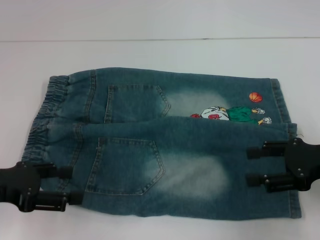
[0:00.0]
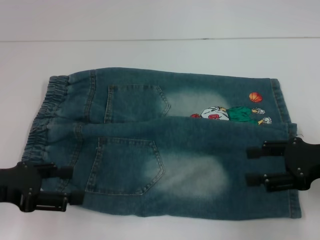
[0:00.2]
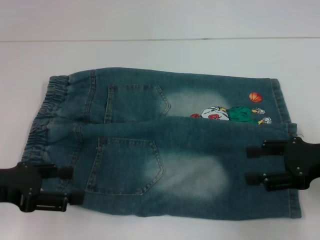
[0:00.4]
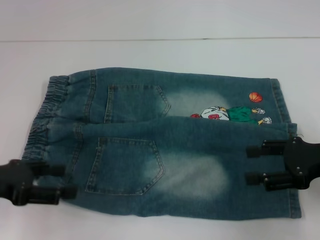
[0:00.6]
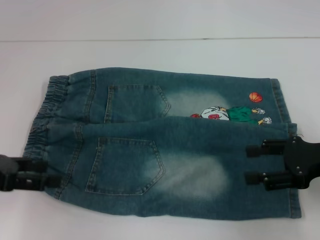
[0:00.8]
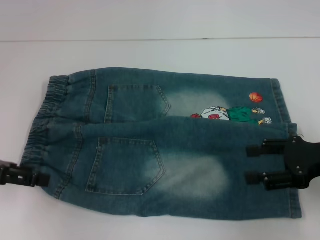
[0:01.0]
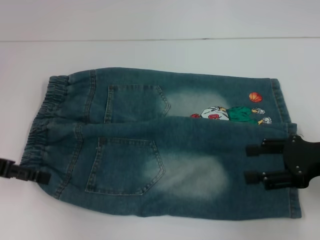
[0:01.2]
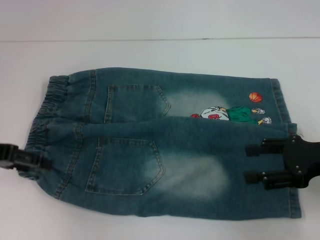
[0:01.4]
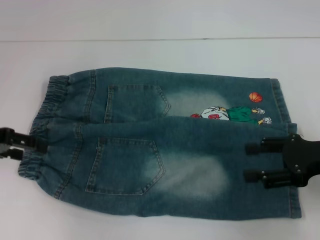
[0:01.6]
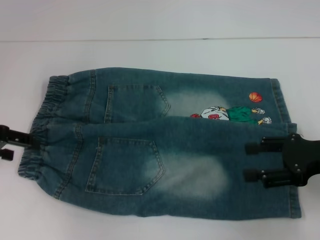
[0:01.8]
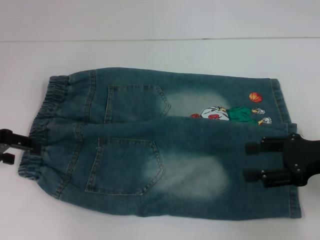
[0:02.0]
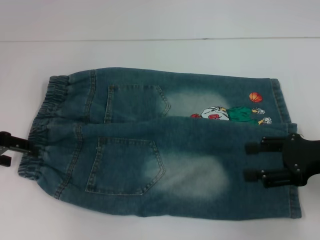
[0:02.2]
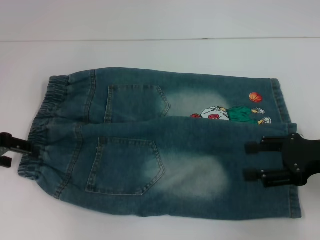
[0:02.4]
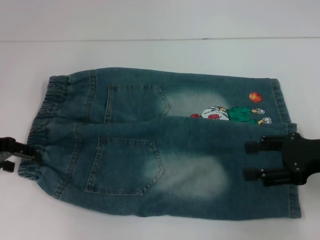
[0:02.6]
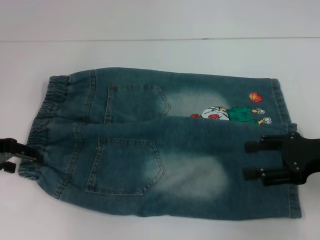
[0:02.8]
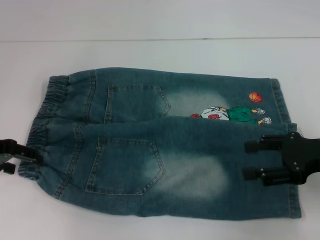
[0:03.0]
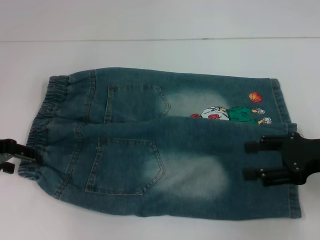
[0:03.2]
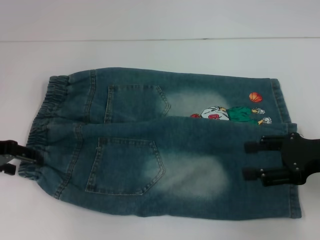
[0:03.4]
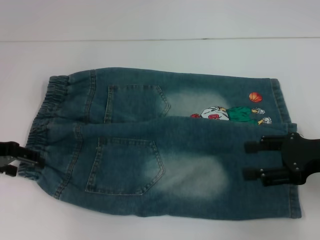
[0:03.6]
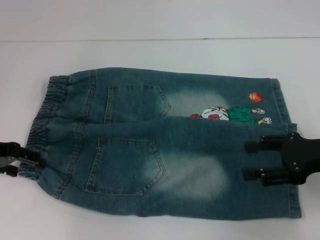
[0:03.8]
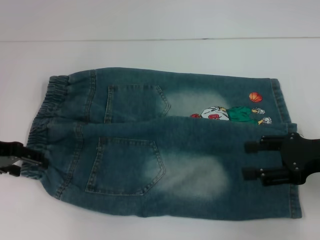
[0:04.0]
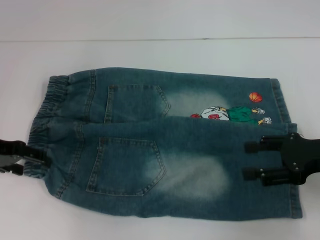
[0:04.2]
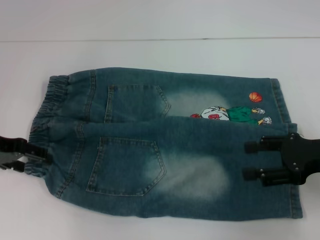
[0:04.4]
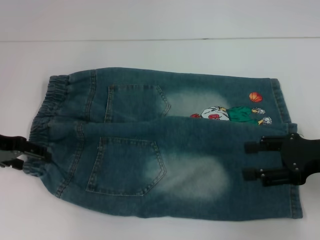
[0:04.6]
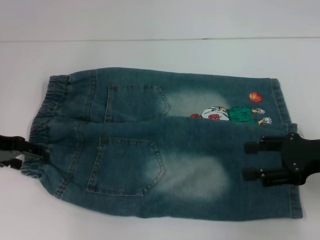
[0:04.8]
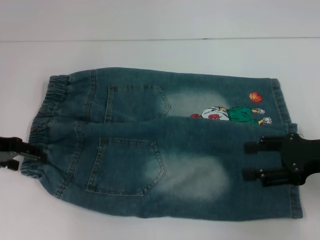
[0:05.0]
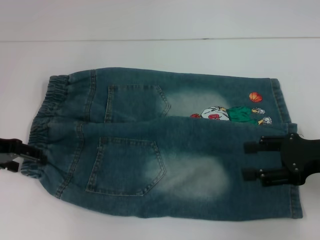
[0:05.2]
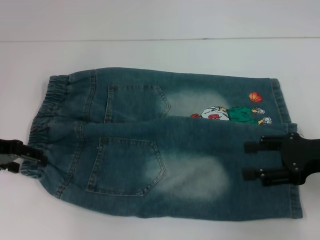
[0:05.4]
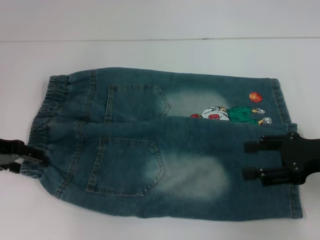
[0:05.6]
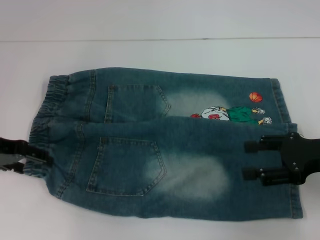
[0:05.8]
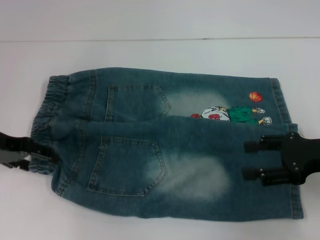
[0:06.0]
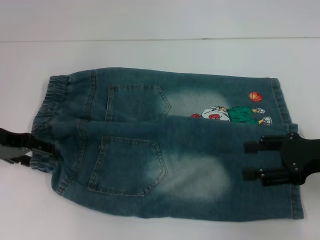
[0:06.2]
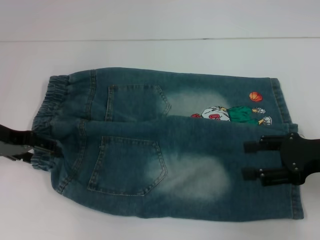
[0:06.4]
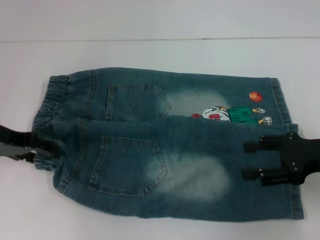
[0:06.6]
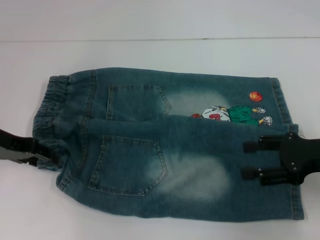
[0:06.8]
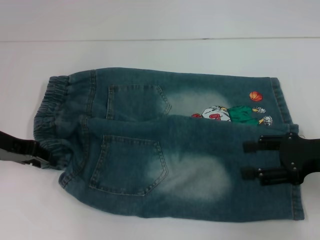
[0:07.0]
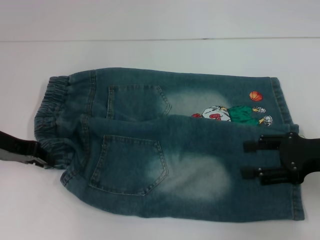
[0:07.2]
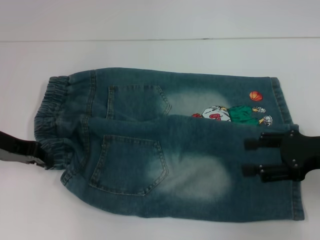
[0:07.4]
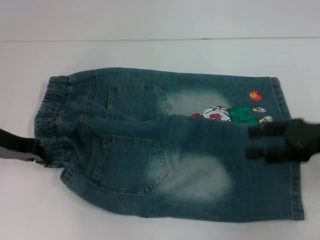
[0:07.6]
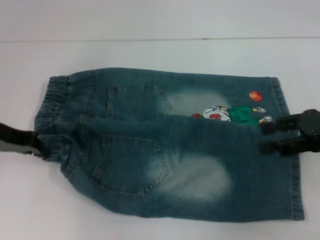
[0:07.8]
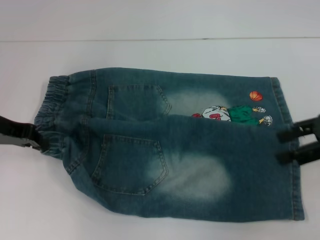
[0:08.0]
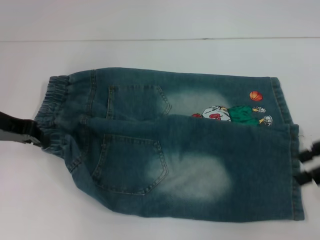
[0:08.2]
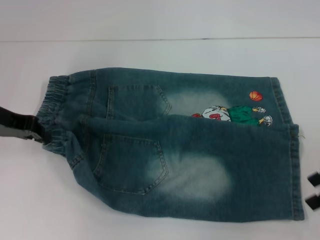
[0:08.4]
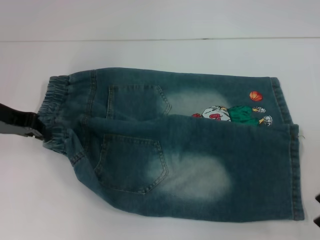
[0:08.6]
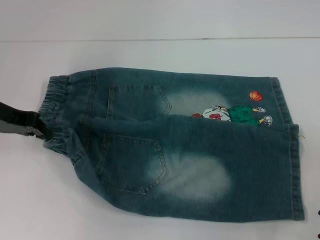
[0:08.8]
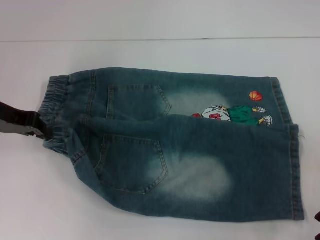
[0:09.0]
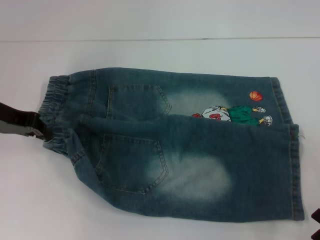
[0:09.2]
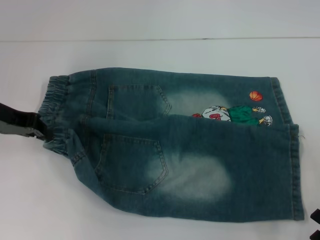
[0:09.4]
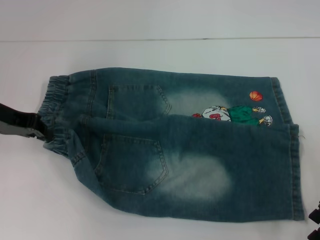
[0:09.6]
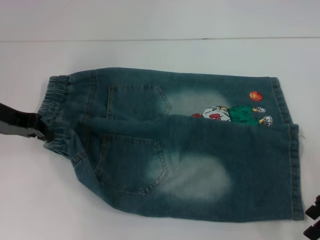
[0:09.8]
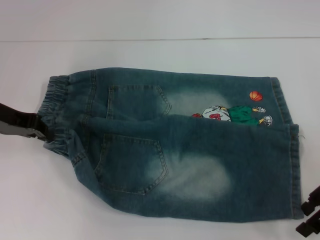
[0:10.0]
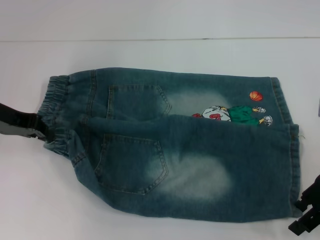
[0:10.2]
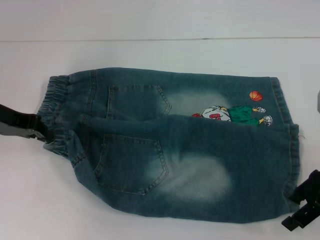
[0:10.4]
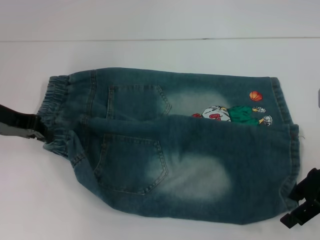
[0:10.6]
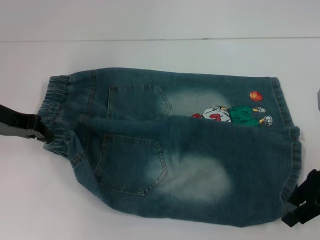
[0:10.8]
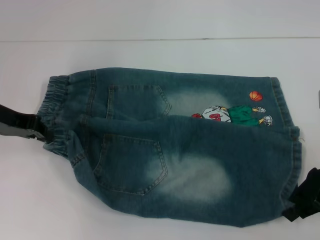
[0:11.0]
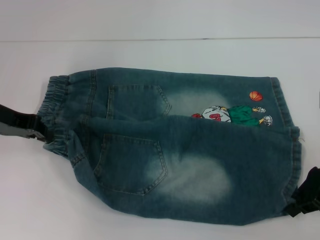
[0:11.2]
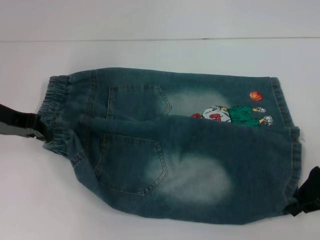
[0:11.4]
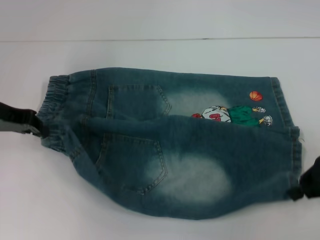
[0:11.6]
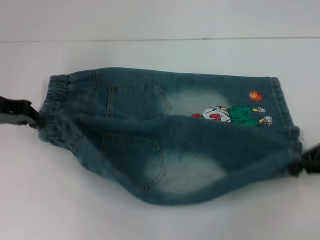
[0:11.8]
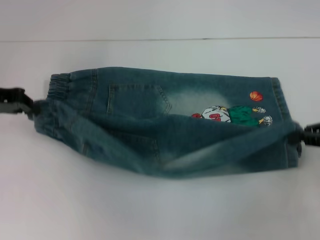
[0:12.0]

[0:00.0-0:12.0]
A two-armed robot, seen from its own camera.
Step, 0:00.0 to 0:07.2: Hold the lower left waistband with your left hand.
Step, 0:07.4 to 0:11.6: Grab the lower right pant leg with your right hand.
0:00.0 to 0:01.6: The left gripper moves forward, approximately 10 cm.
0:01.6 to 0:03.0: The grippers move only a little.
0:03.0 to 0:04.4: Neither gripper changes place.
0:04.4 to 0:06.0: The two grippers keep their place.
0:06.0 to 0:07.6: The left gripper closes up.
0:09.0 to 0:10.4: There are only small adjustments of the grippers.
0:10.4 to 0:12.0: The right gripper heads to the right, covering roughly 10 cm, and closes.

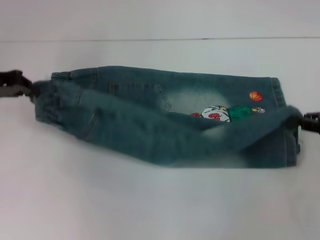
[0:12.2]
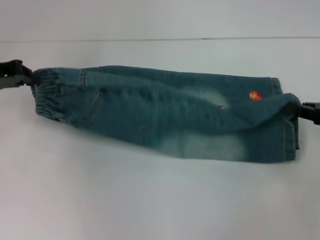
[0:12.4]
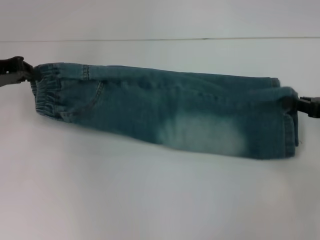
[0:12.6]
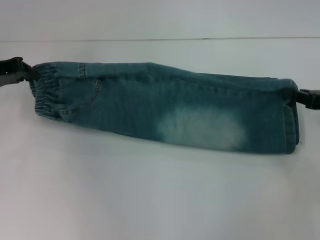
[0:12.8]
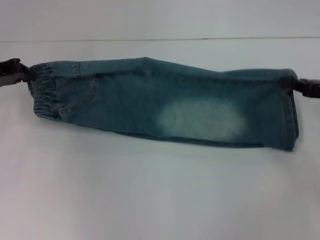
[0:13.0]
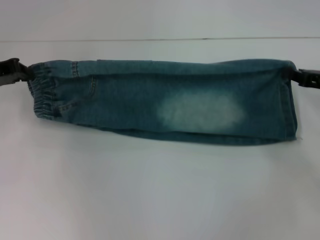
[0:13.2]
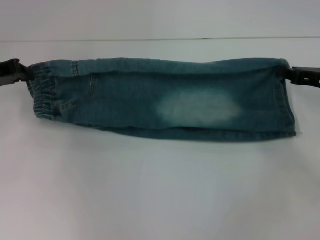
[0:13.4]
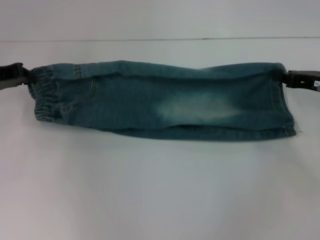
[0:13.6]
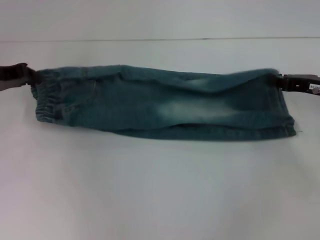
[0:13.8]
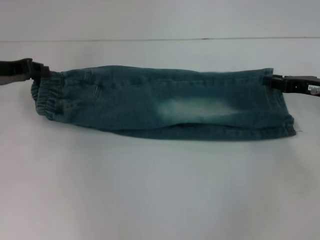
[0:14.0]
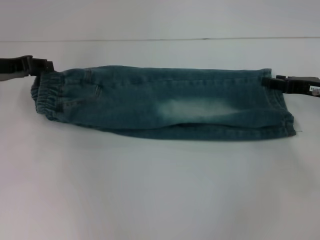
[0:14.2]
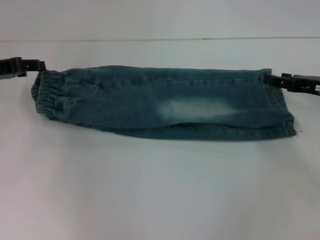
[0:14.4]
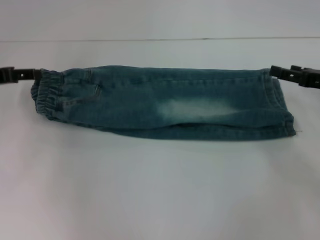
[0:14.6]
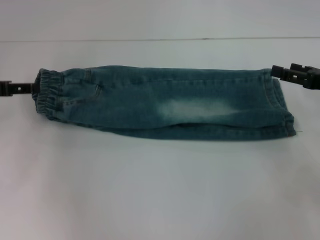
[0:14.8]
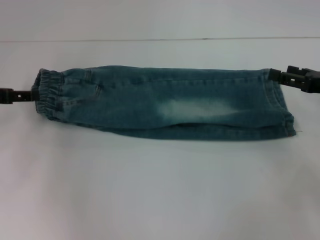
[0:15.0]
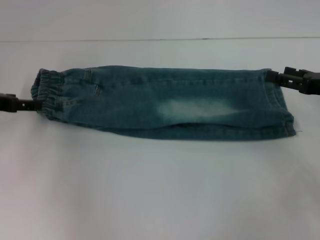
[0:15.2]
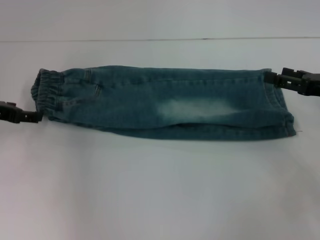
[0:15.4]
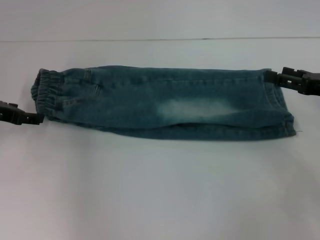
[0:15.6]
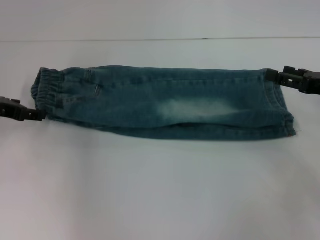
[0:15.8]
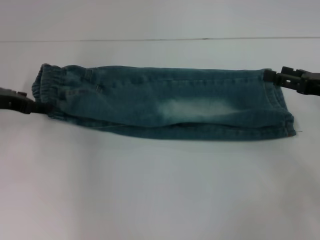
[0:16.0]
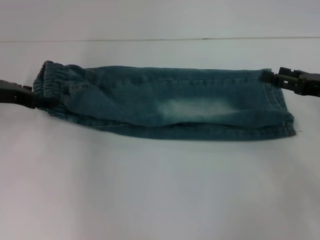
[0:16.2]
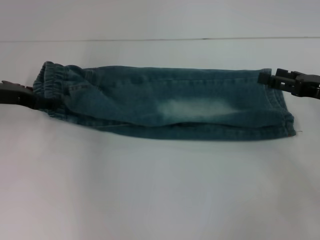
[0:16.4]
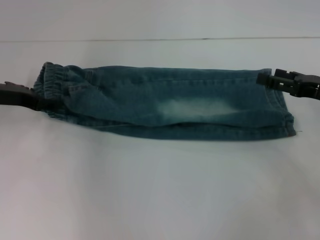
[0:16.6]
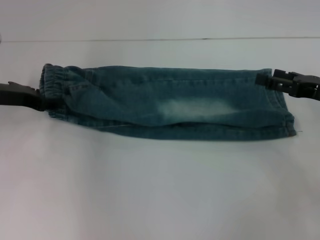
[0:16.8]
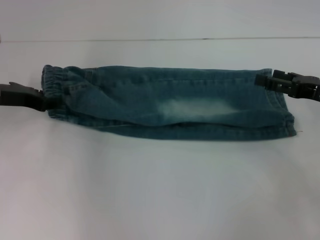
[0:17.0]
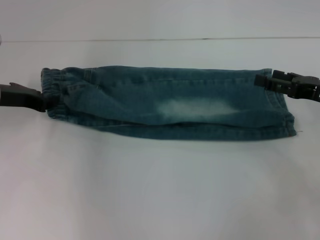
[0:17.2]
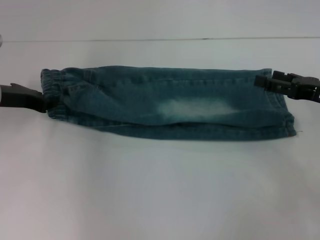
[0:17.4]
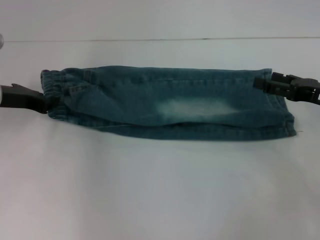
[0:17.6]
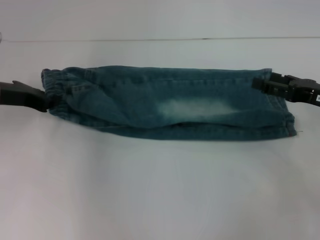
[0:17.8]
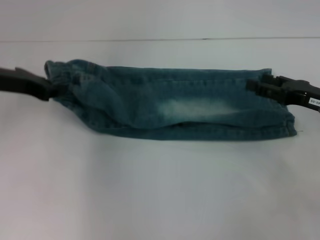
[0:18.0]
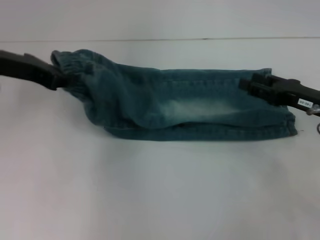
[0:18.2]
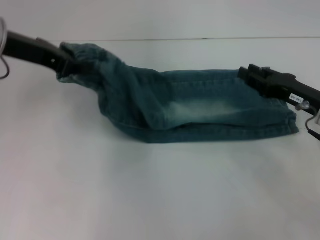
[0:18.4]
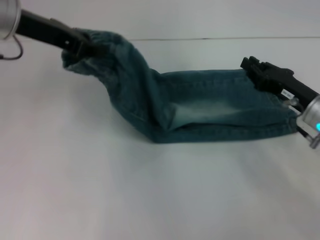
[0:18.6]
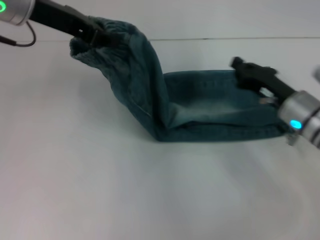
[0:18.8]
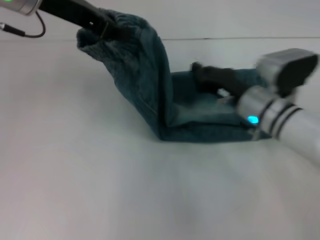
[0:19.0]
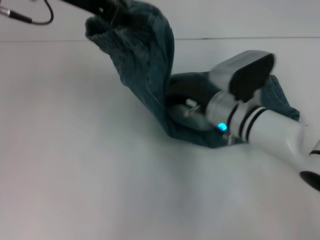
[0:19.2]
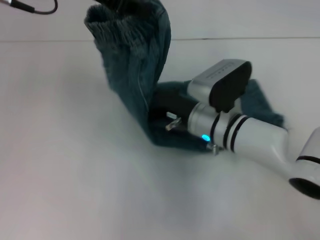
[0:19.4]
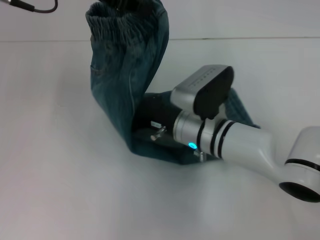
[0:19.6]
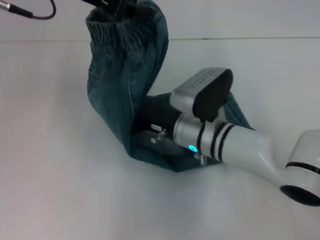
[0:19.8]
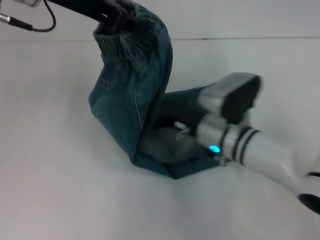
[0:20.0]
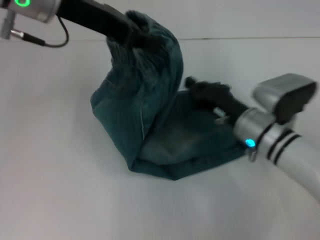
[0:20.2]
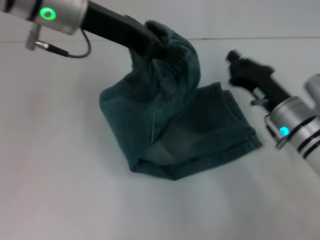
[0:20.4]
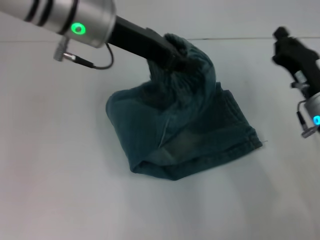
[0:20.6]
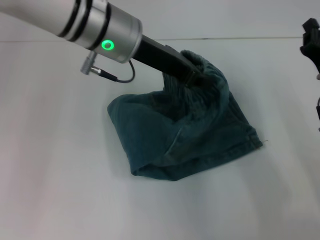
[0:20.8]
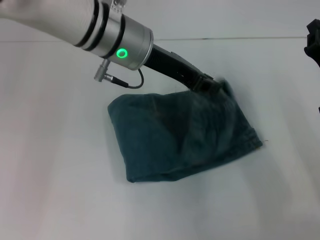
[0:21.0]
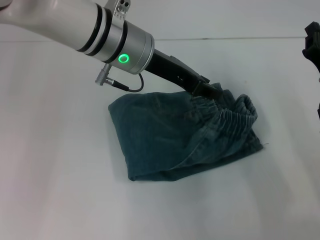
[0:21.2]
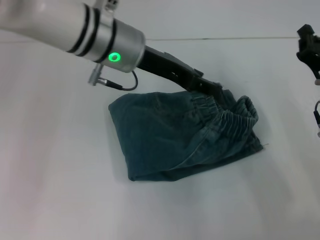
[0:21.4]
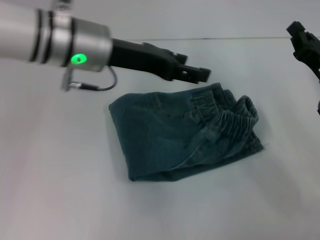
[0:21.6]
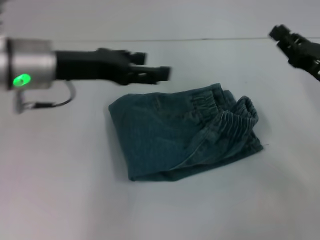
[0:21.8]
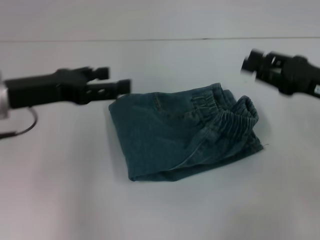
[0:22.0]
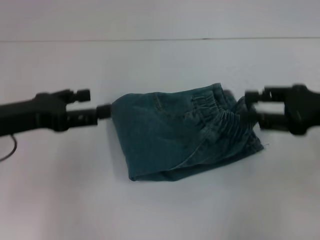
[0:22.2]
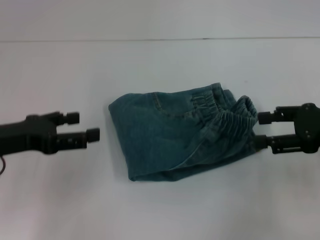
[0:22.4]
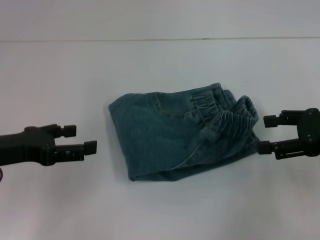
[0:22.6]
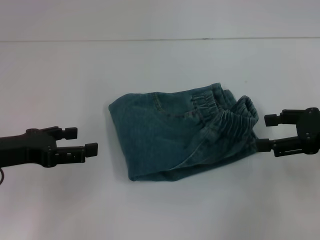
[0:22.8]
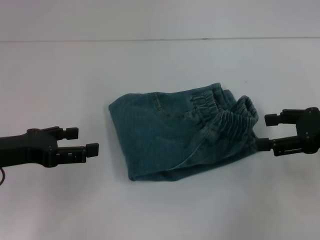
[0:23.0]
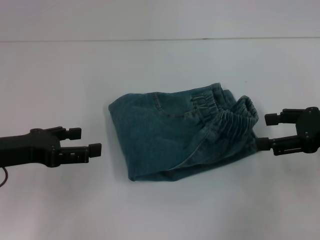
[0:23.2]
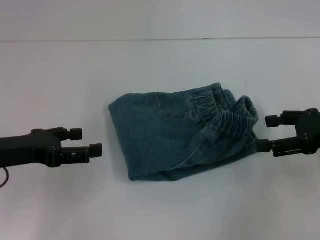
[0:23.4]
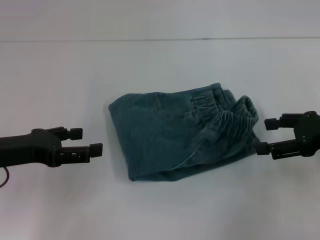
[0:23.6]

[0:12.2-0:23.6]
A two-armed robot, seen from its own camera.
Step, 0:12.2 to 0:14.8: Fold upward with your right hand.
Step, 0:15.0 to 0:17.4: Hold the waistband with your left hand.
Step, 0:17.6 to 0:20.0: Press the middle of the pants with your right hand.
Step, 0:20.2 to 0:21.2: Fold to the right with your left hand.
0:12.2 to 0:13.6: The right gripper shifts some 5 cm forward.
0:13.6 to 0:15.0: The right gripper opens. Meanwhile the left gripper opens its fingers.
0:15.0 to 0:16.4: The left gripper shifts by about 5 cm.
0:16.4 to 0:17.8: The left gripper closes up.
0:17.8 to 0:19.4: The right gripper is displaced to the left by about 25 cm, and closes, while the left gripper moves upward and to the right, some 20 cm.
0:19.4 to 0:20.8: The left gripper heads downward and to the right, covering some 10 cm. The right gripper goes about 20 cm to the right.
0:20.8 to 0:22.2: The right gripper goes about 10 cm upward, and opens its fingers. The left gripper is displaced to the left, backward and downward by roughly 20 cm, and opens up.
0:22.2 to 0:23.6: The right gripper opens.
